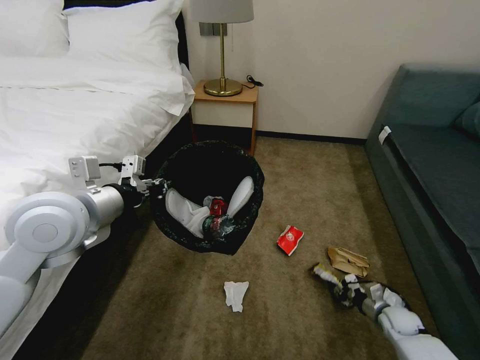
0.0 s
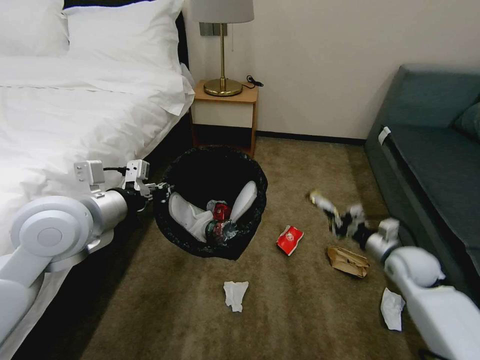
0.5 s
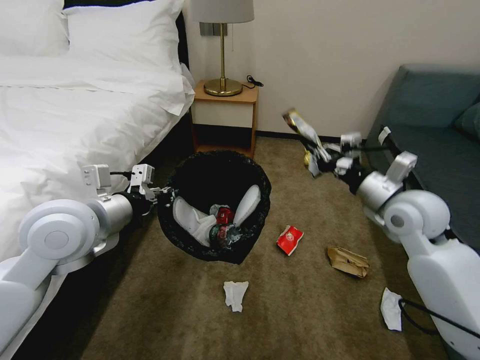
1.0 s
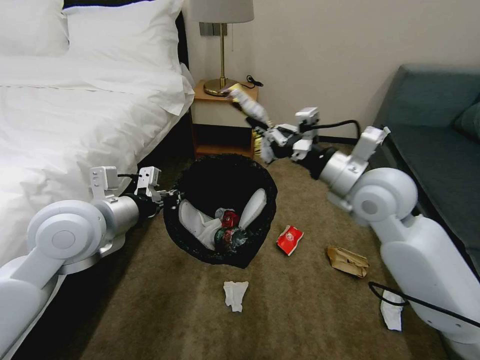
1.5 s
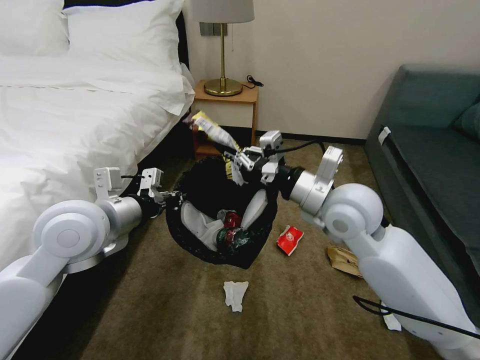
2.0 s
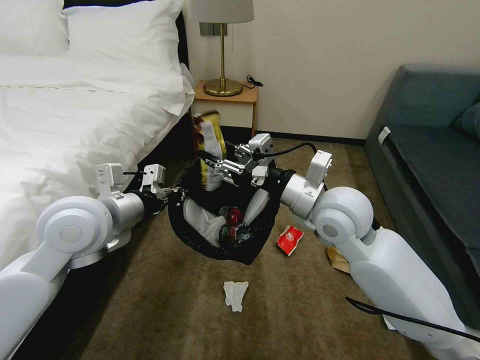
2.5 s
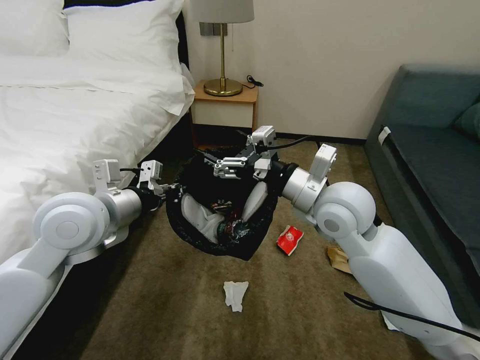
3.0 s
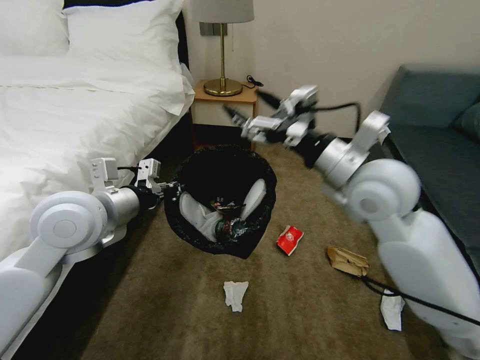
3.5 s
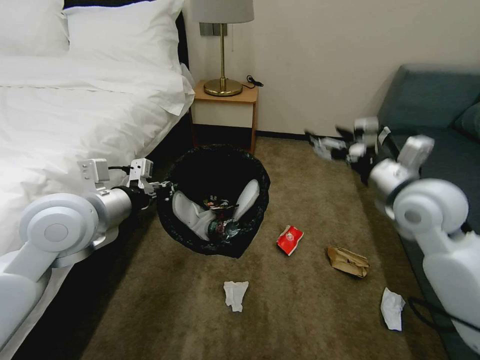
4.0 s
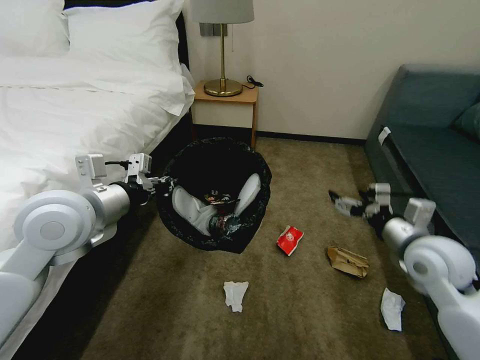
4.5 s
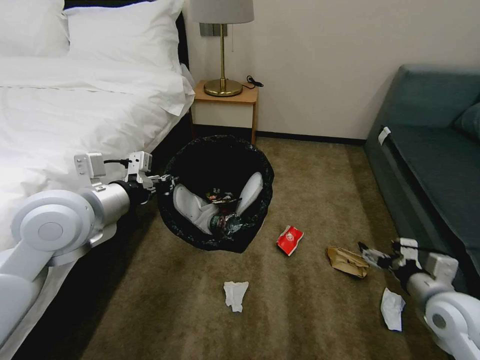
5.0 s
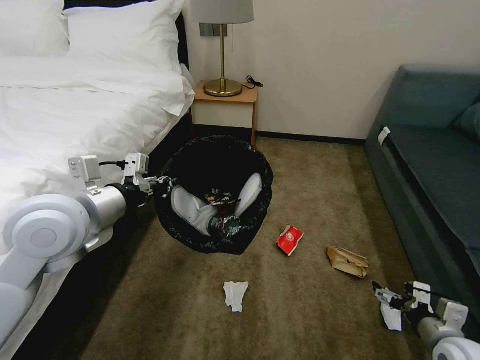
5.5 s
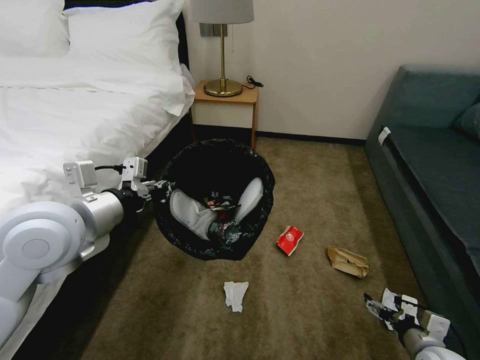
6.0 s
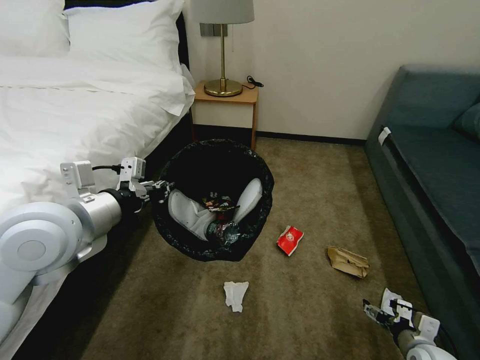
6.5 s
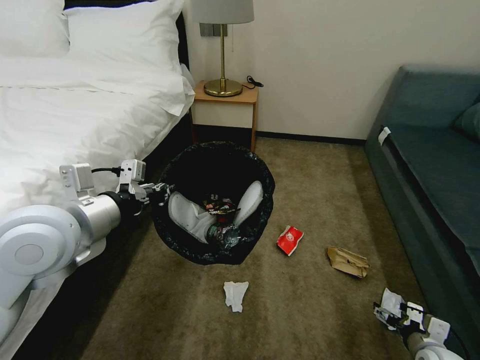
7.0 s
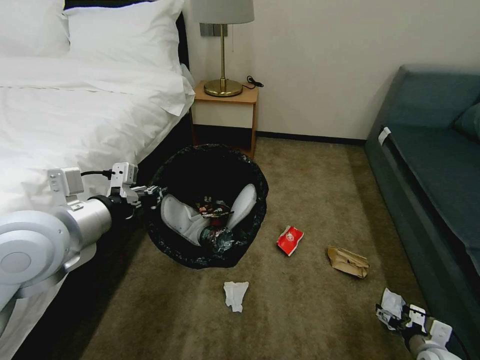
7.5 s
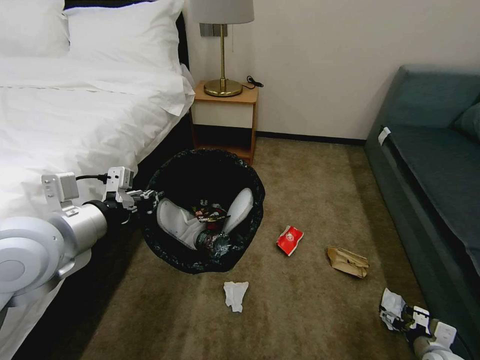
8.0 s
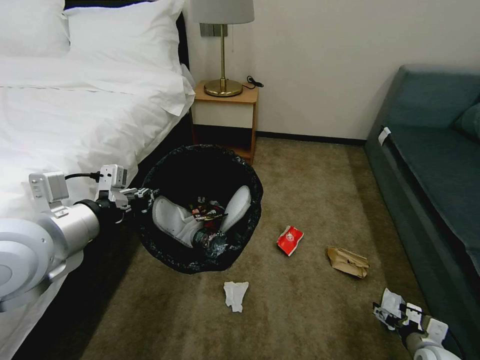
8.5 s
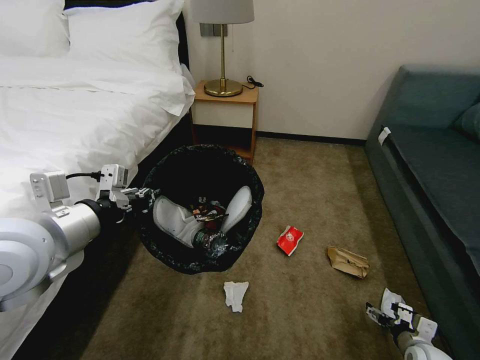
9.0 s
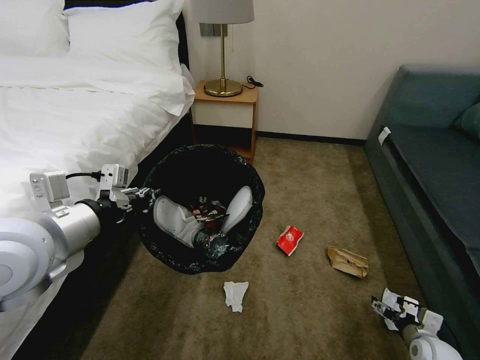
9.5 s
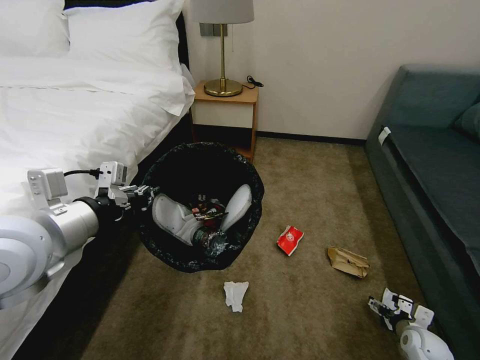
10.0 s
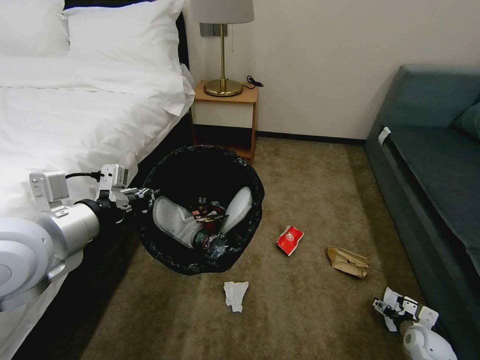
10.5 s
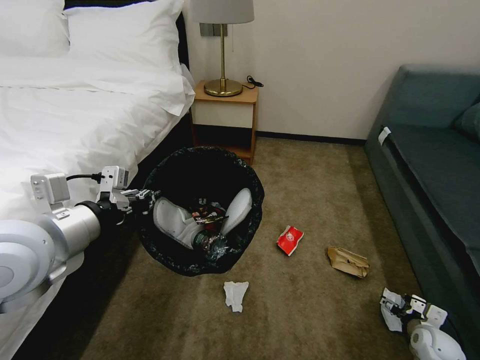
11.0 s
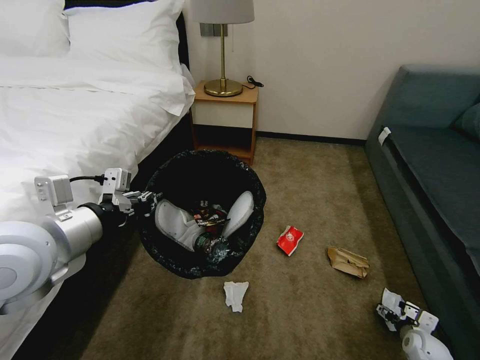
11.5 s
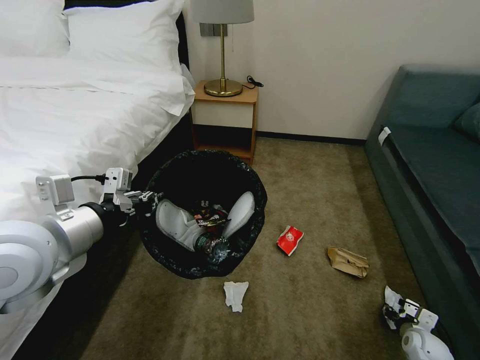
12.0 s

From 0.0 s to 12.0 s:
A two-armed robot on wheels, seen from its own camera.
Task of the whole recording: Pick up the trash bin, then pick up the garbage on the floor and place it into the trash bin.
From 0.0 s to 2.0 s: The right gripper travels upward and to the left by roughly 50 cm.
From 2.0 s to 4.0 s: The right gripper shifts about 10 cm to the right, and opens.
From 4.0 s to 6.0 s: The right gripper travels downward and backward by approximately 35 cm.
From 6.0 s to 8.0 s: The right gripper heads downward and to the right, covering approximately 10 cm.
From 8.0 s to 10.0 s: The right gripper shifts some 5 cm forward.
From 10.0 s to 12.0 s: The right gripper closes up.

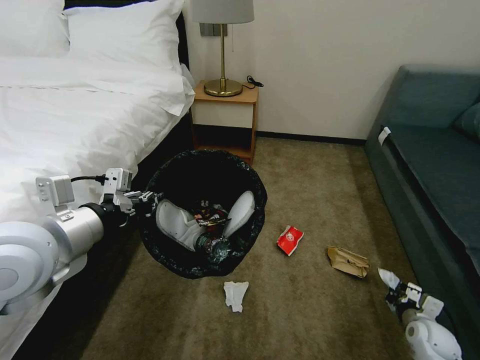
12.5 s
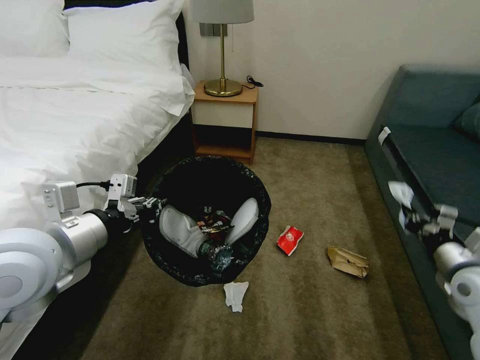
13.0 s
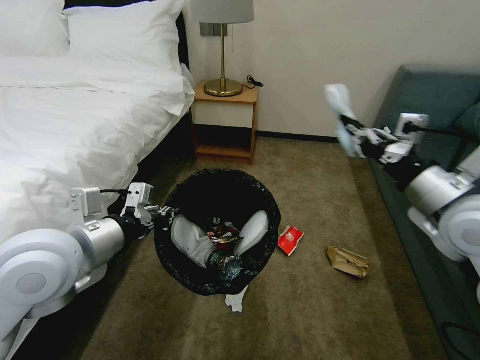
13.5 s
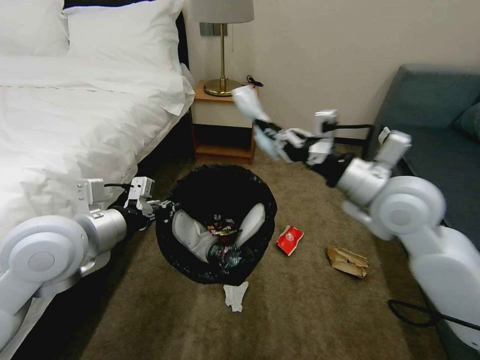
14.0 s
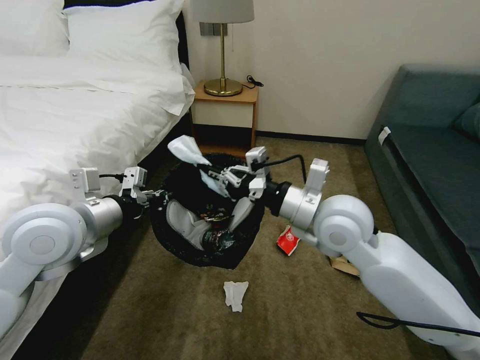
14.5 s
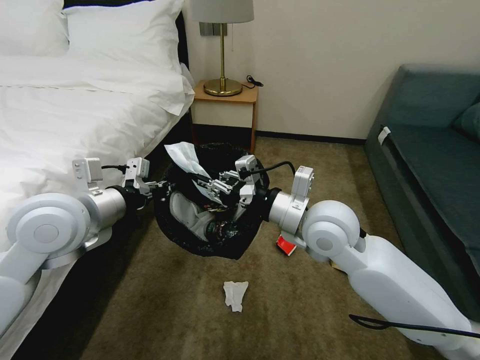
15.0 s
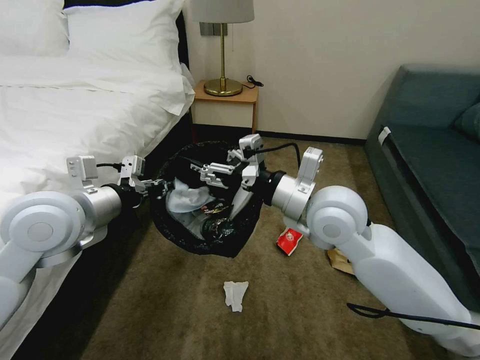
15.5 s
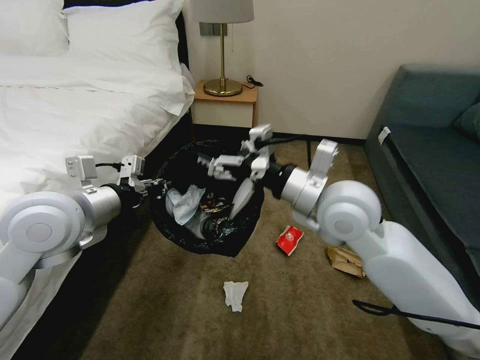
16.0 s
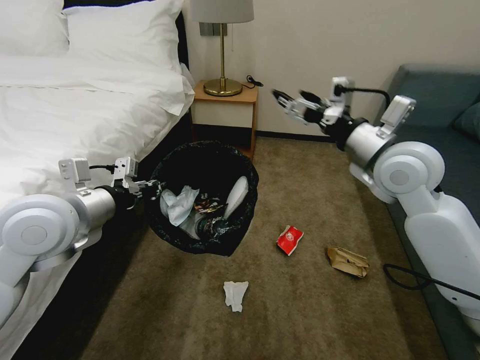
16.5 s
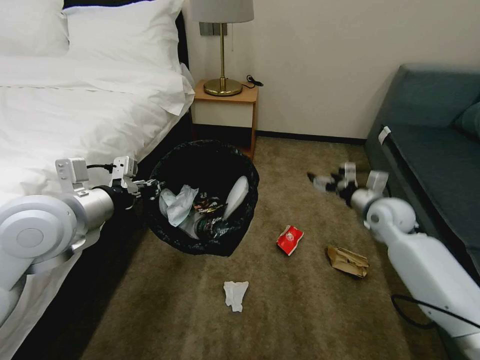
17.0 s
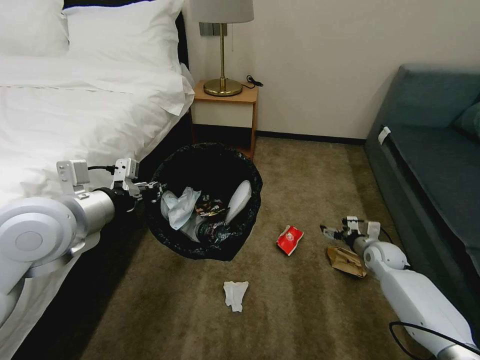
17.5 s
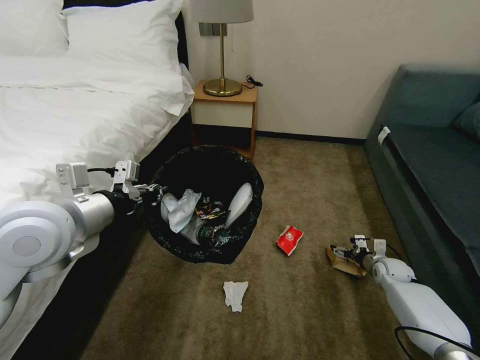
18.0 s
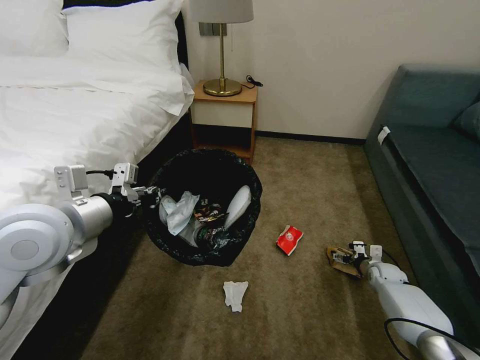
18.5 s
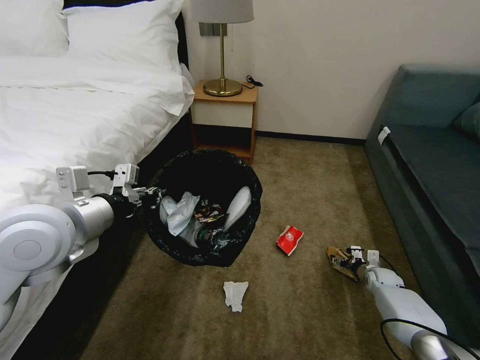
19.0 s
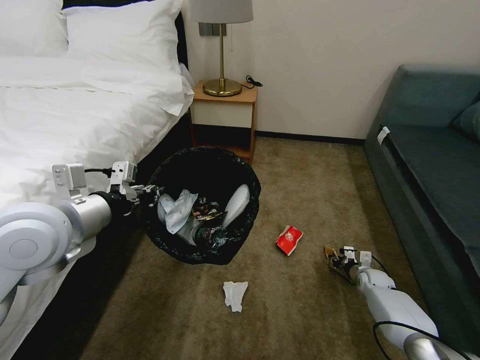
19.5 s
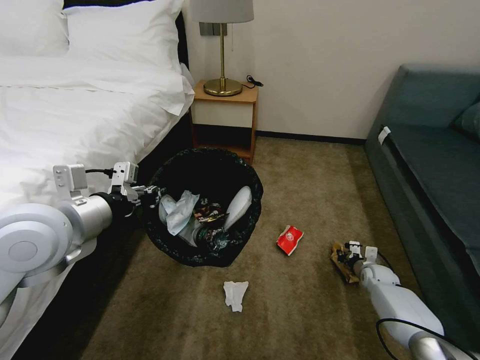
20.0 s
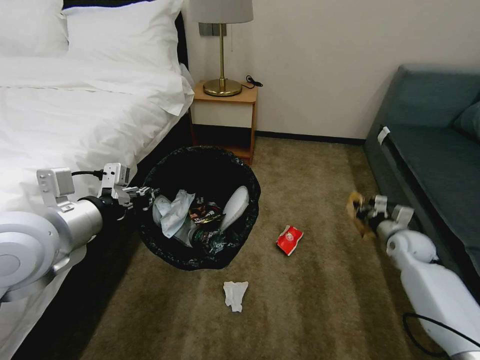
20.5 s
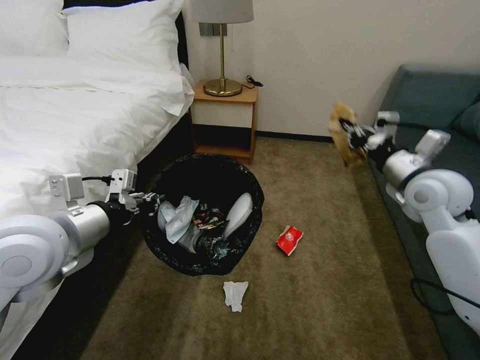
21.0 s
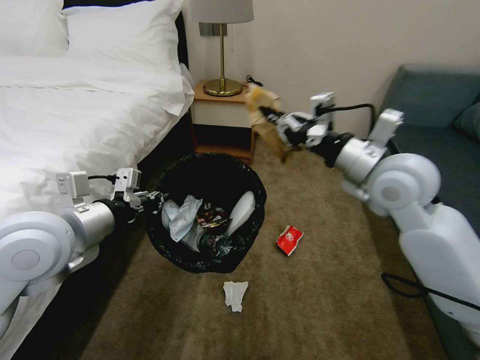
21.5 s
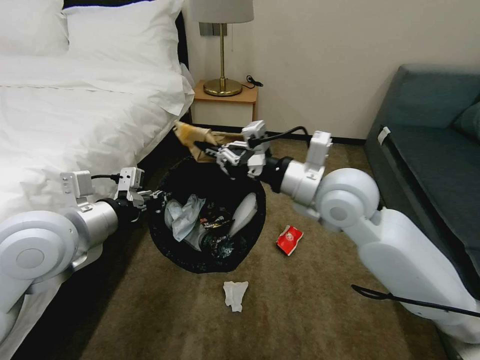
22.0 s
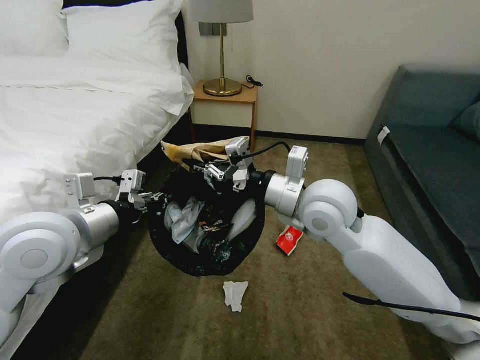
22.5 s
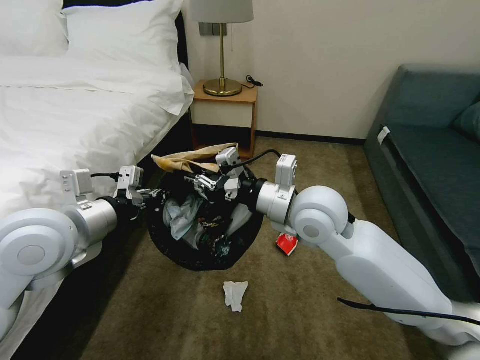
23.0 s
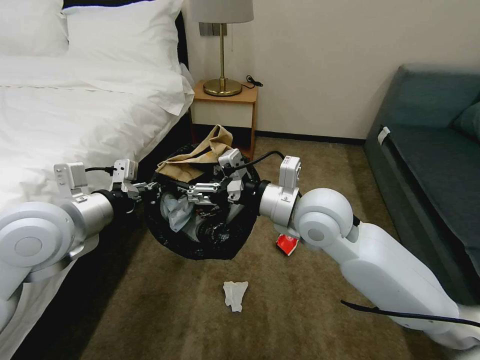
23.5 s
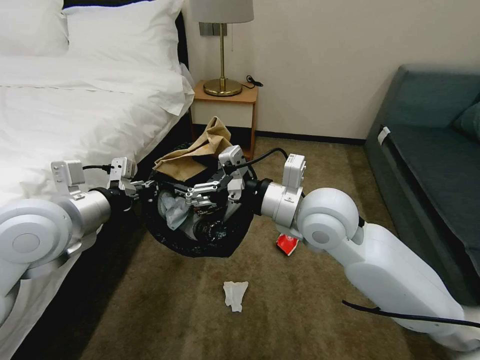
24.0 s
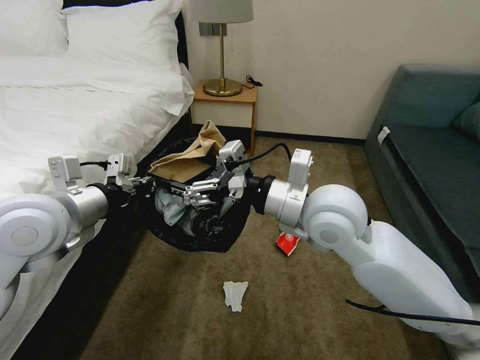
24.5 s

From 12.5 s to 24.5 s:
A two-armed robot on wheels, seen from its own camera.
Task of the whole recording: Pick up the trash bin, then pick up the garbage on the floor and place it into the trash bin.
From 12.5 s to 14.5 s: The right gripper goes approximately 50 cm upward and to the left, while the left gripper shifts about 5 cm forward.
From 14.5 s to 16.5 s: The right gripper heads to the right, upward and forward, covering some 15 cm, and opens.
From 16.5 s to 18.5 s: The right gripper moves downward and to the right, about 50 cm.
From 18.5 s to 20.5 s: The right gripper travels upward by approximately 15 cm, and closes its fingers.
From 20.5 s to 22.5 s: The right gripper heads to the left and upward, covering approximately 40 cm.
From 22.5 s to 24.5 s: The right gripper opens its fingers.

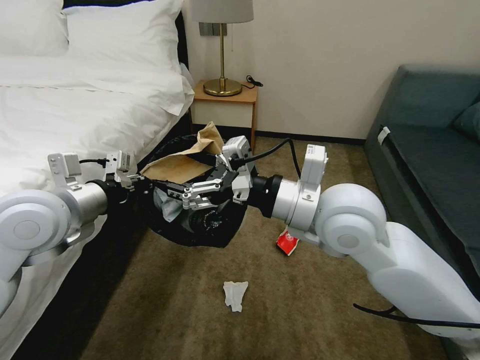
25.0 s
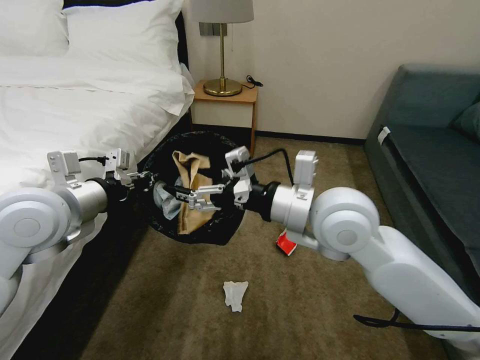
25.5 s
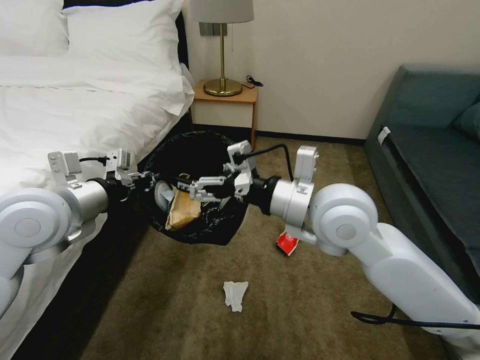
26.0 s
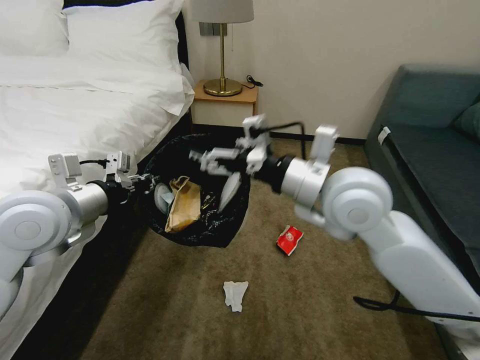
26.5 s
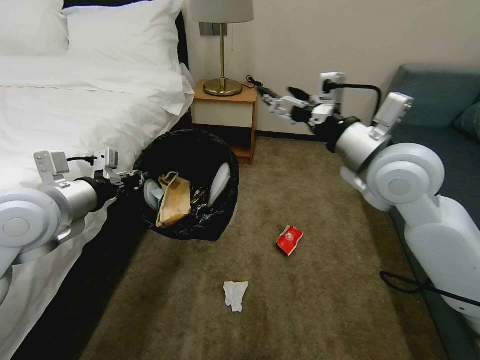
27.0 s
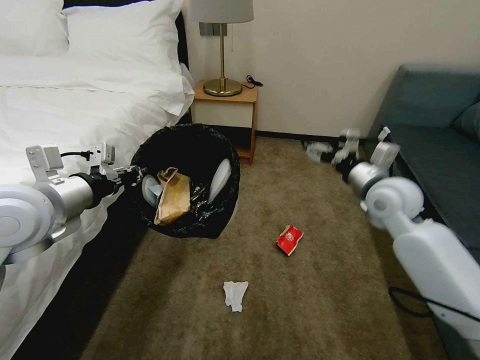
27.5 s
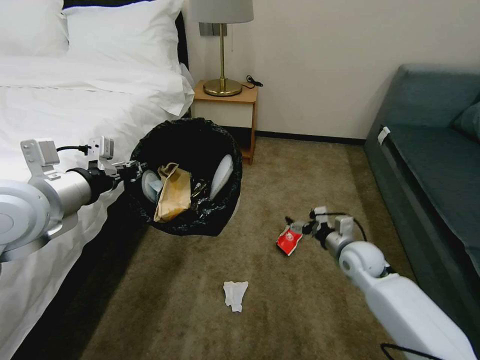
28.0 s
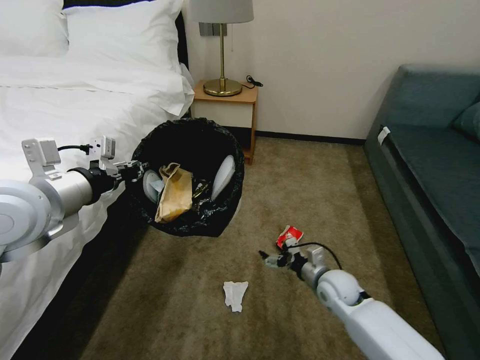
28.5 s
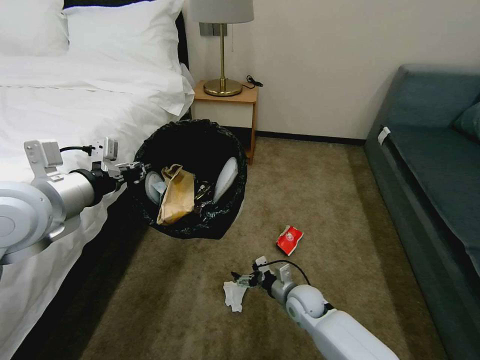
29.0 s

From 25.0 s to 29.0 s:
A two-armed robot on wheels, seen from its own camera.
Task of the whole recording: Pick up the trash bin, then pick up the garbage on the floor and place it into the trash bin.
From 25.0 s to 27.0 s: The right gripper goes about 10 cm to the right and forward.
From 27.0 s to 29.0 s: The right gripper shifts some 40 cm downward.
